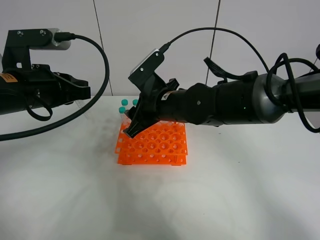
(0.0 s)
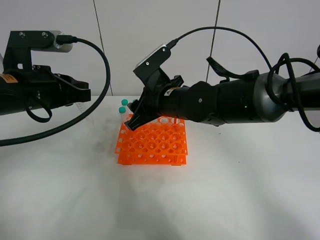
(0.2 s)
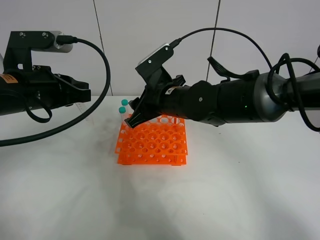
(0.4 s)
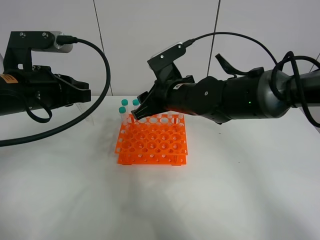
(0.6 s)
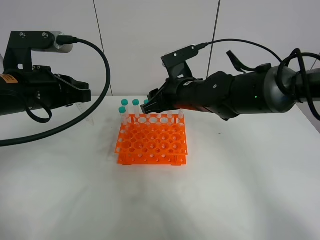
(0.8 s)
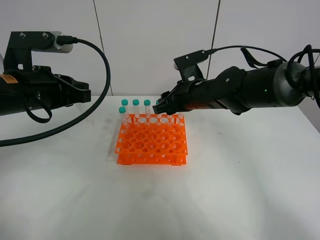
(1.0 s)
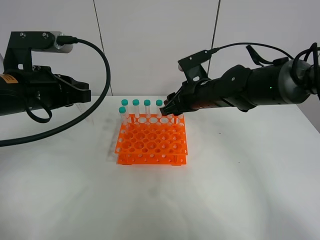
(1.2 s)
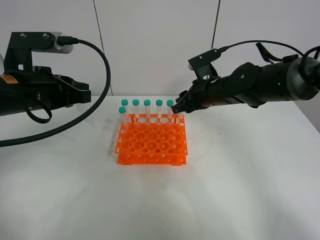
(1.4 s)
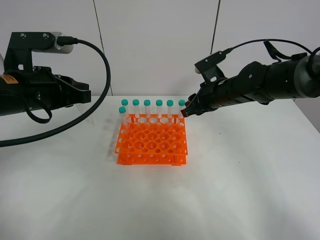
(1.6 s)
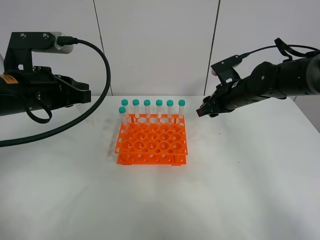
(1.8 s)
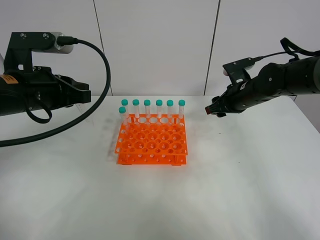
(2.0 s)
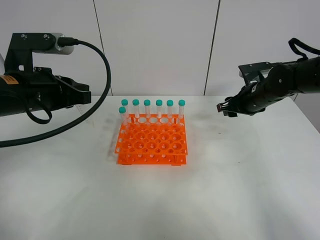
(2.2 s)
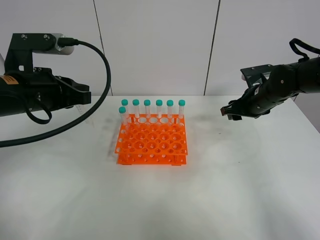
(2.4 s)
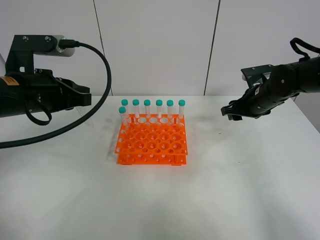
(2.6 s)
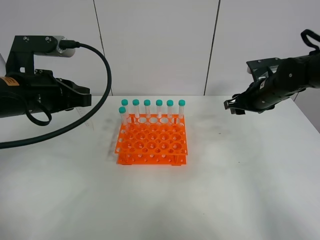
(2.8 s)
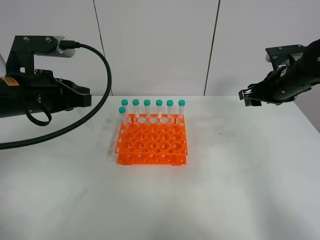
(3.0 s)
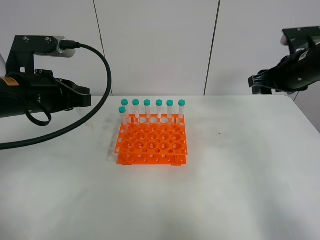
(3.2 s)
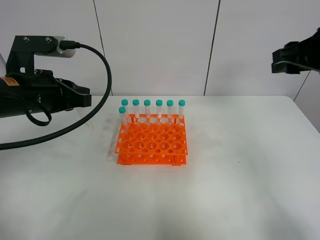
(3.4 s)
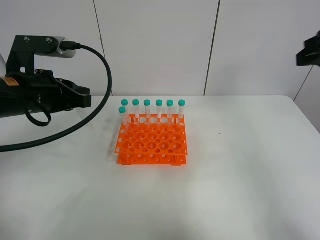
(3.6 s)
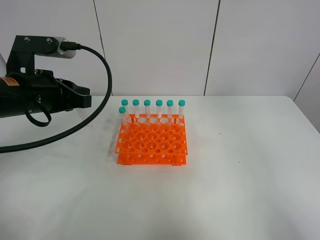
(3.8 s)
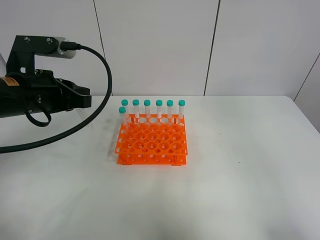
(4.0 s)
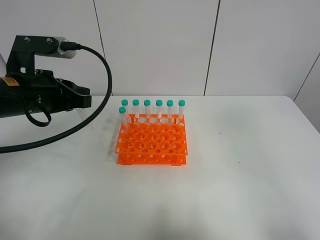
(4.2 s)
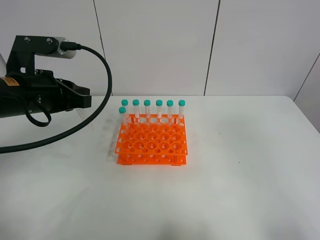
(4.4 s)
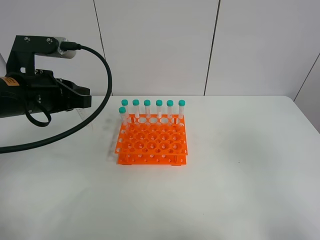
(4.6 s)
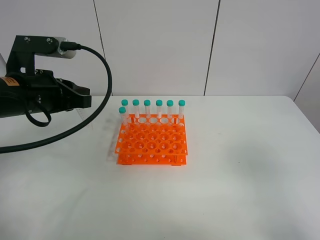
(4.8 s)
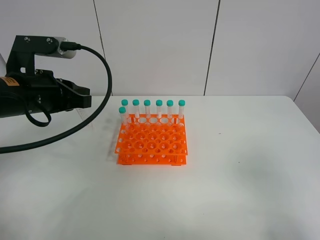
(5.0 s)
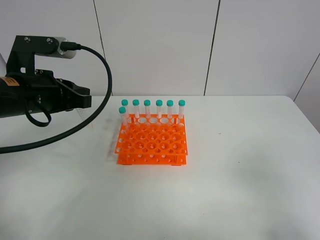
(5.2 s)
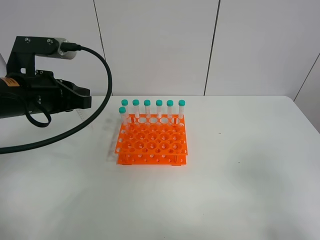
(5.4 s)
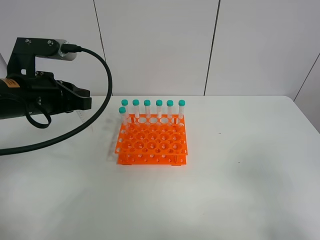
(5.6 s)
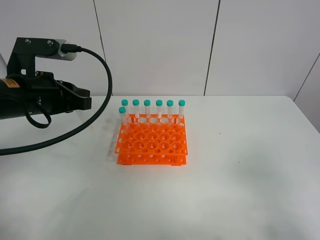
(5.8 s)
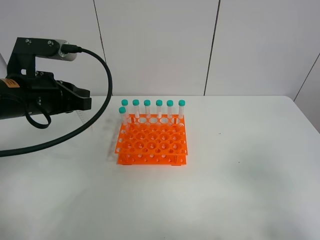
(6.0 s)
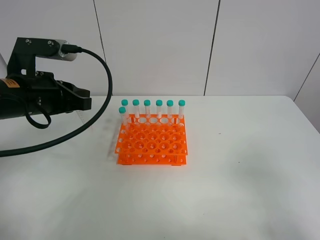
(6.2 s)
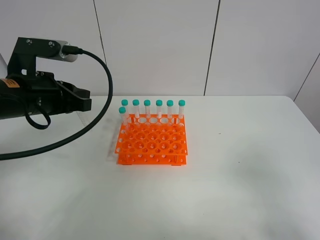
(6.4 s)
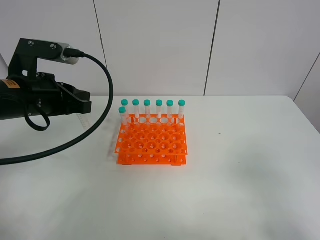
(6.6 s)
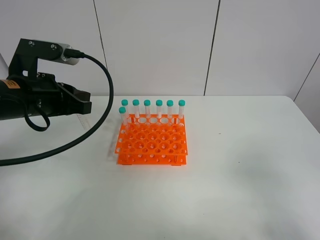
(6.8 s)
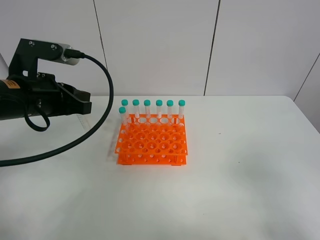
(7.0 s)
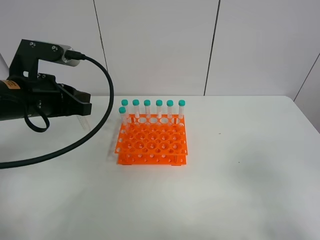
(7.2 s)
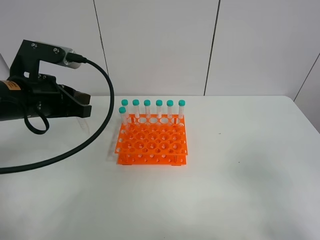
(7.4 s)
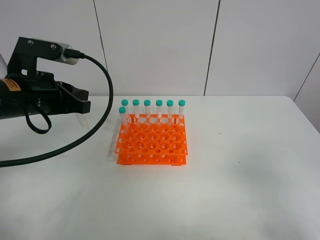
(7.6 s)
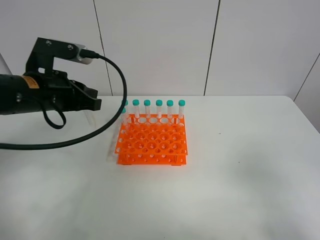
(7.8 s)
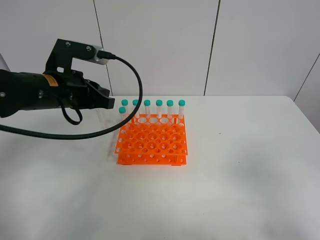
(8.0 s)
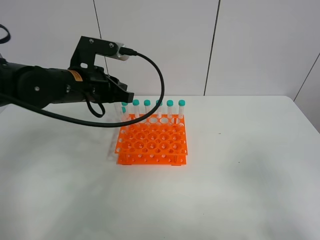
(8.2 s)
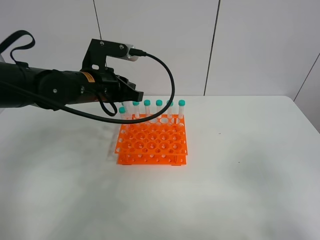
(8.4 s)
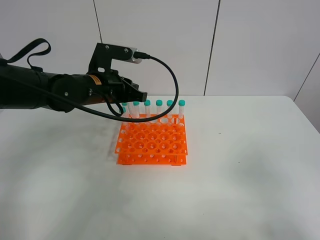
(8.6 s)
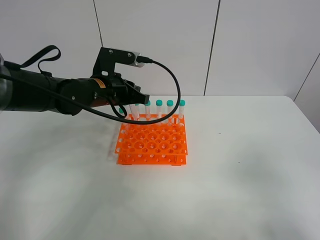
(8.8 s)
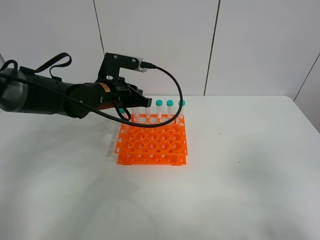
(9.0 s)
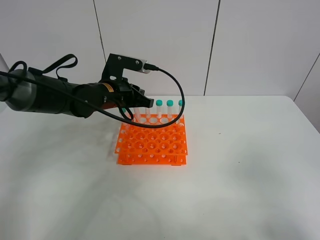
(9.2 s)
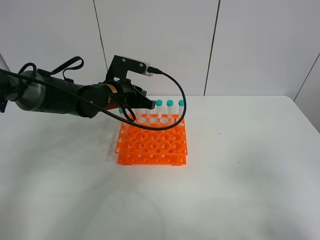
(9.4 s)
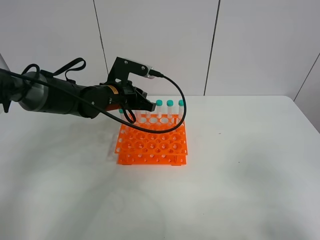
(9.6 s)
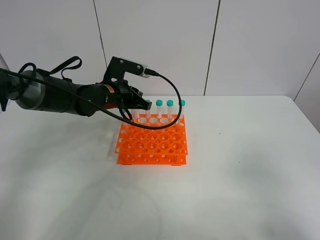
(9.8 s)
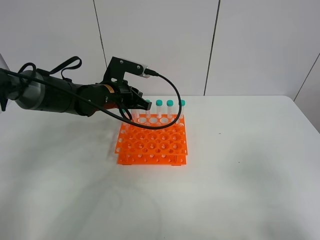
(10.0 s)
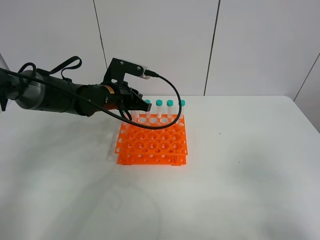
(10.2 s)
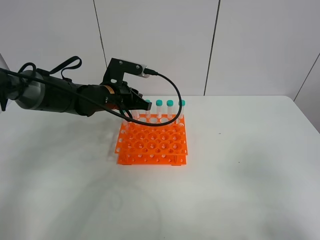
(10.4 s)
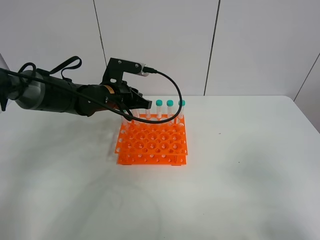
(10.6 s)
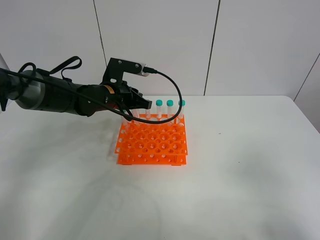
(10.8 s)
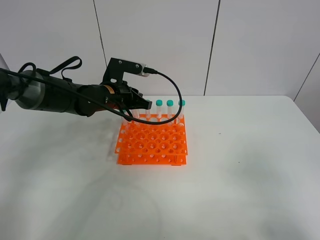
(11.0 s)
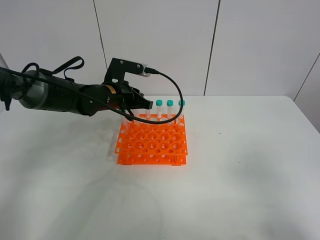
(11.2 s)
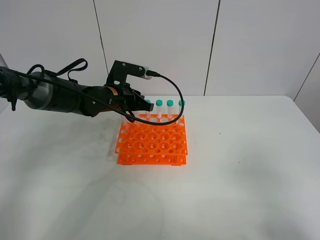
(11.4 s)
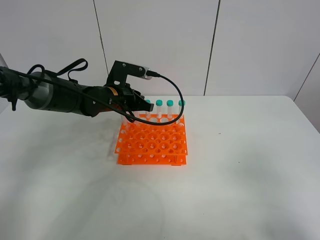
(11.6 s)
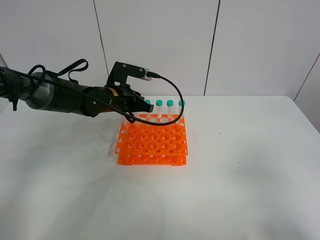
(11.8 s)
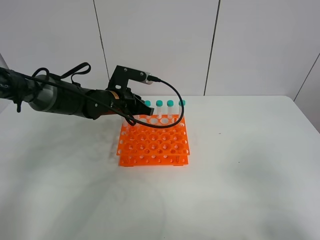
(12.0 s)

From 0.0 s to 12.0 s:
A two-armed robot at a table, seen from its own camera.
Task of the whole recording: Put the test tube on the table back onto the test tube rack.
From 0.0 s to 1.6 s: The right gripper shifts approximately 15 cm to the right and forward.
From 1.6 s to 3.0 s: The right gripper is displaced to the right and upward by some 15 cm.
From 3.0 s to 4.4 s: The right gripper heads backward and upward, covering roughly 40 cm.
From 6.0 s to 7.6 s: The grippers move only a little.
From 7.6 s to 9.0 s: The left gripper heads forward, to the right and downward, covering some 15 cm.
From 9.0 s to 12.0 s: The grippers make only small movements.

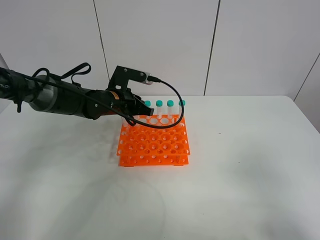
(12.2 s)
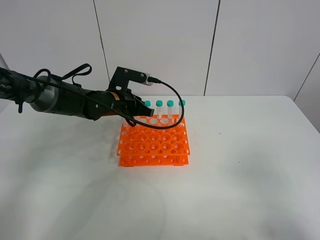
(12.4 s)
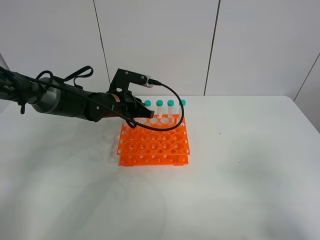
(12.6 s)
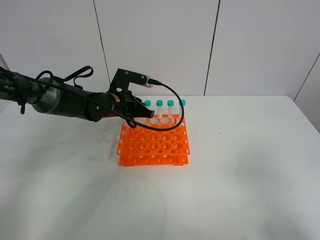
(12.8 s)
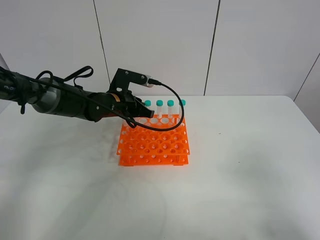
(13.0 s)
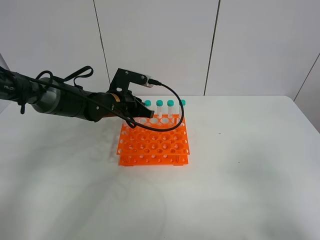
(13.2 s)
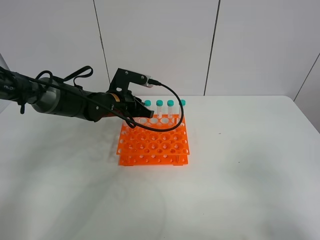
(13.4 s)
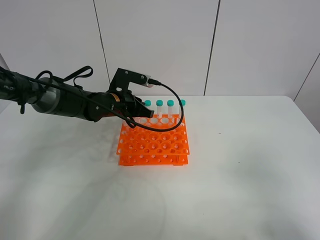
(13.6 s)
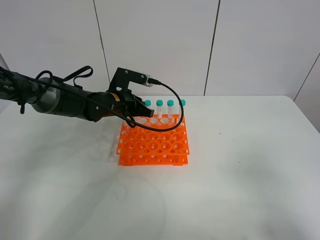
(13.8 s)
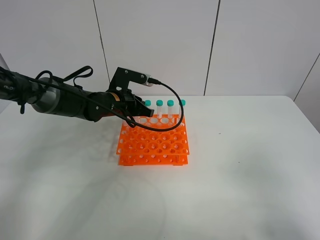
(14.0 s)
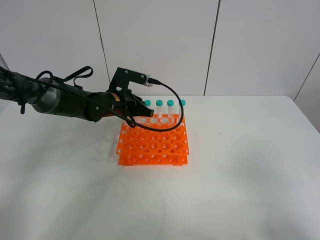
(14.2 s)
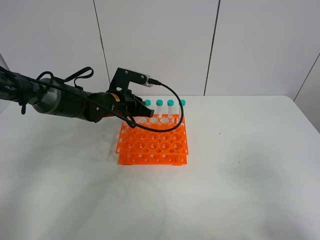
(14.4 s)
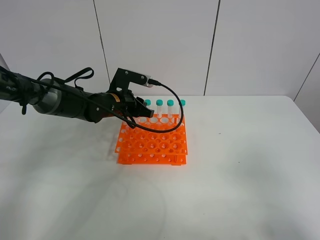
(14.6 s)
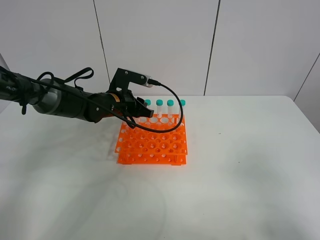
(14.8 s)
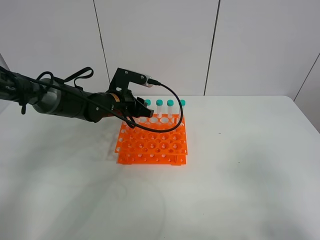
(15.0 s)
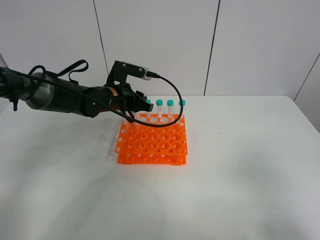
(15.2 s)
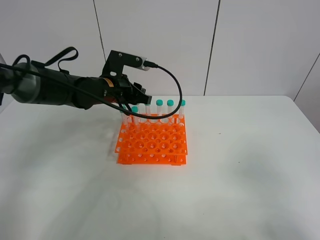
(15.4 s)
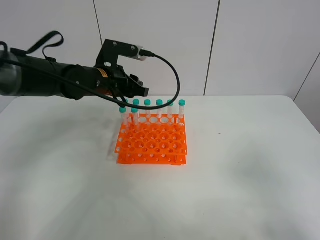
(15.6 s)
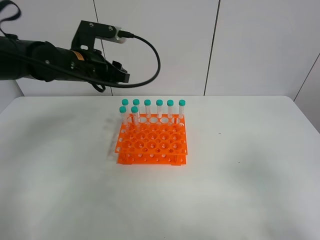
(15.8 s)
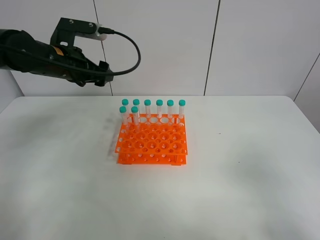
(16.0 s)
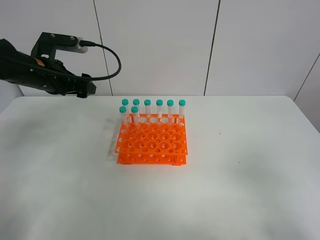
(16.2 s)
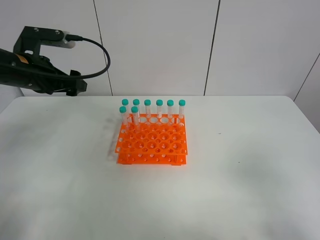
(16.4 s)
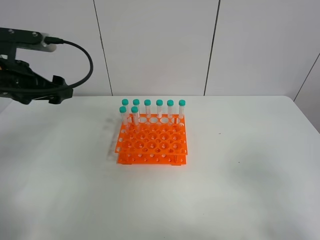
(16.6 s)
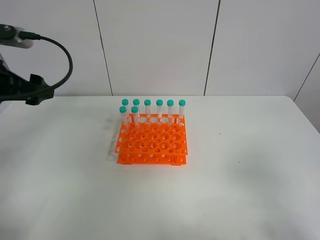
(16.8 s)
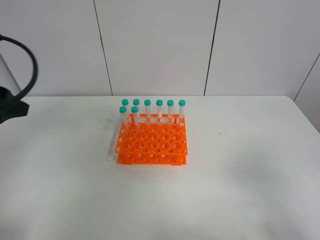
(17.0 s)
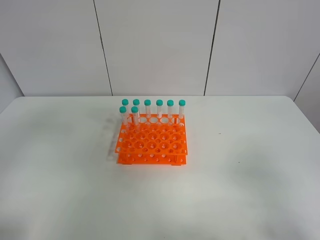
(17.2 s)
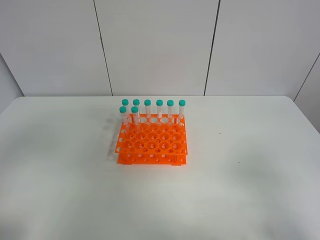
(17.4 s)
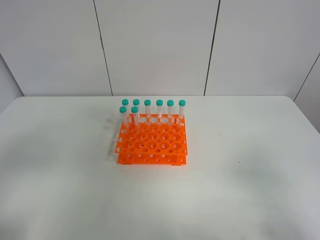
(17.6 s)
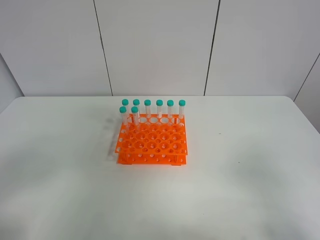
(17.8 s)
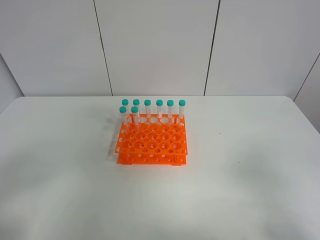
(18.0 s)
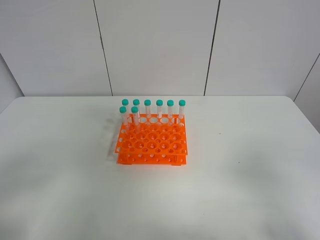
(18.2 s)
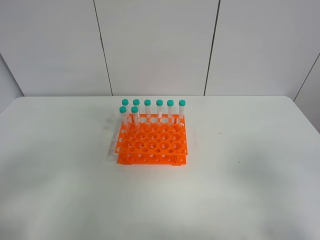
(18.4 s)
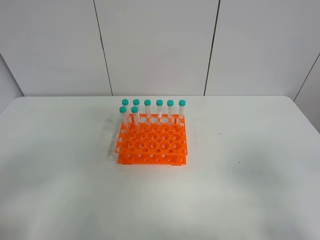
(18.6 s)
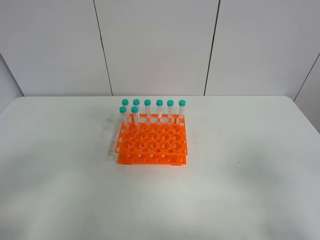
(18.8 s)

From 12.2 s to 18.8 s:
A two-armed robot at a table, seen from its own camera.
Task of the whole recording: Put the test tube on the table back onto the test tube rack.
Step, from 12.2 s to 16.0 s: Place the test tube on the test tube rack with the left gripper.
From 12.2 s to 13.8 s: Both grippers stay about where they are.
From 13.8 s to 15.4 s: The left gripper shifts roughly 5 cm upward.
From 15.4 s to 17.2 s: The left gripper is displaced backward, to the left and upward by about 35 cm, and opens up.
From 17.2 s to 18.8 s: The left gripper moves backward and downward, some 15 cm.
